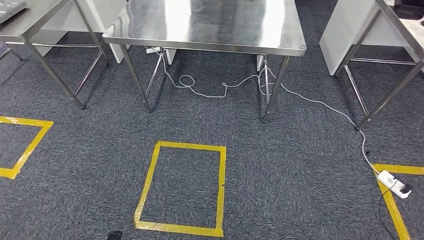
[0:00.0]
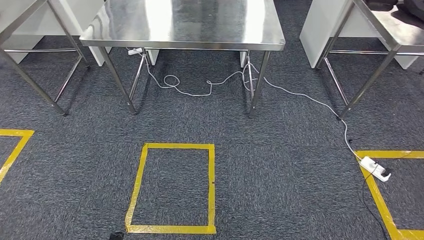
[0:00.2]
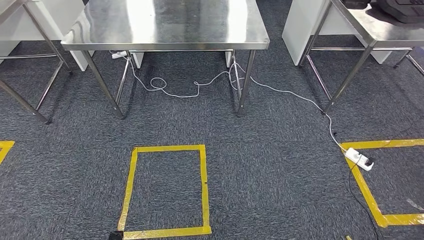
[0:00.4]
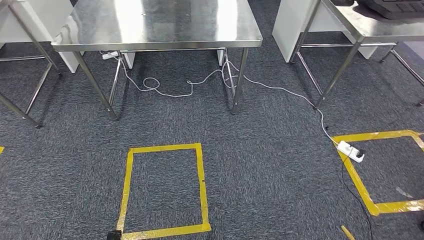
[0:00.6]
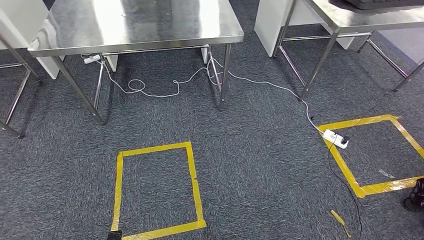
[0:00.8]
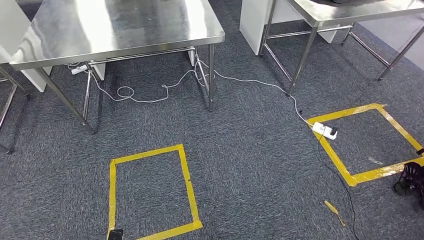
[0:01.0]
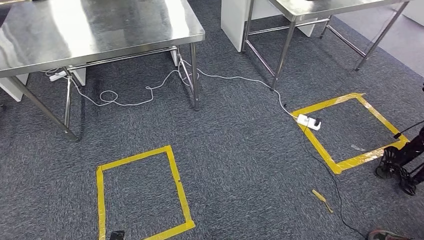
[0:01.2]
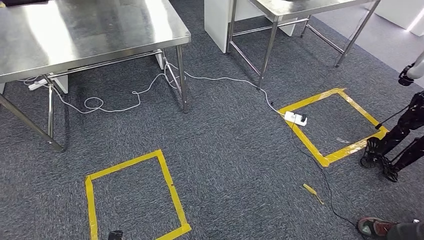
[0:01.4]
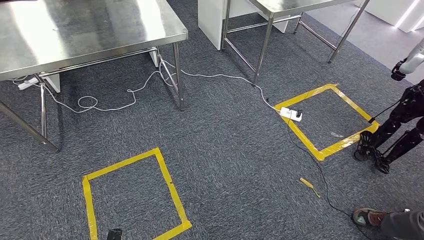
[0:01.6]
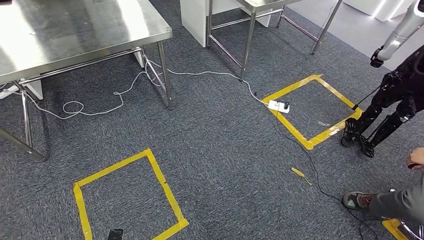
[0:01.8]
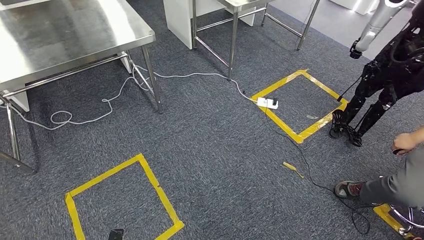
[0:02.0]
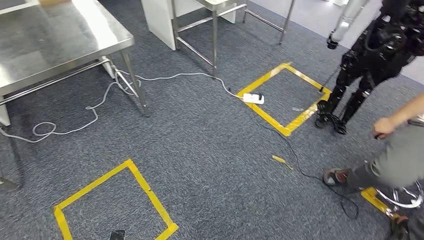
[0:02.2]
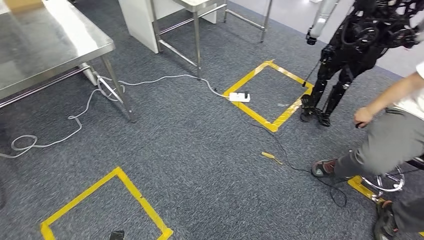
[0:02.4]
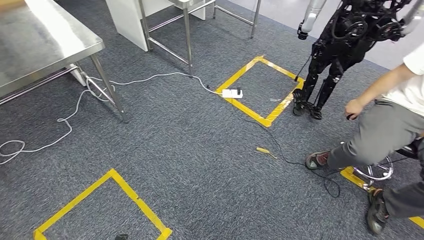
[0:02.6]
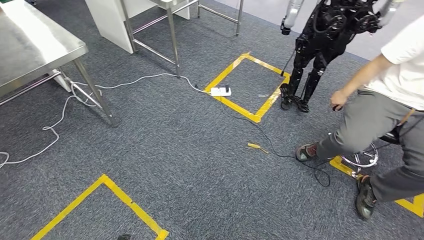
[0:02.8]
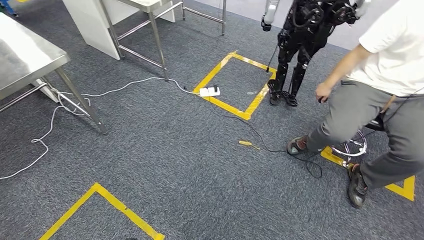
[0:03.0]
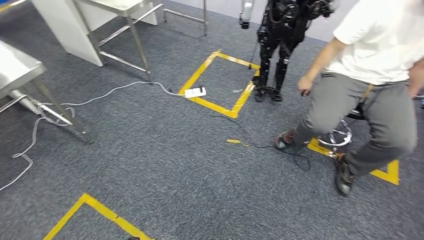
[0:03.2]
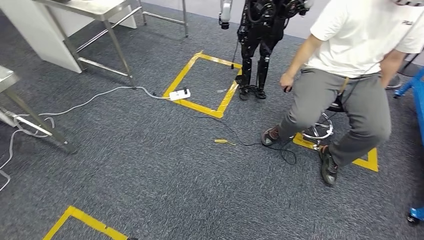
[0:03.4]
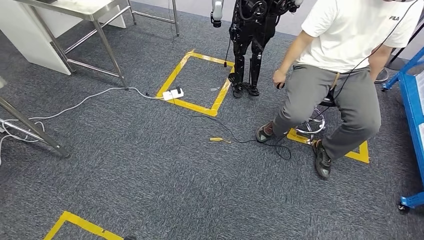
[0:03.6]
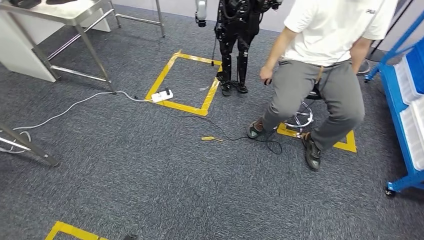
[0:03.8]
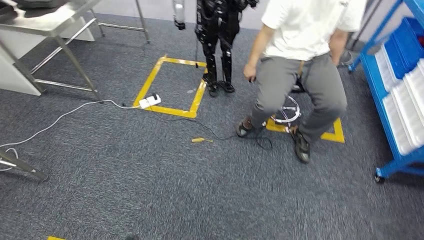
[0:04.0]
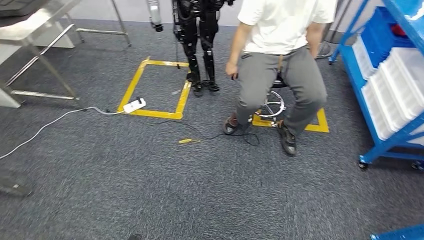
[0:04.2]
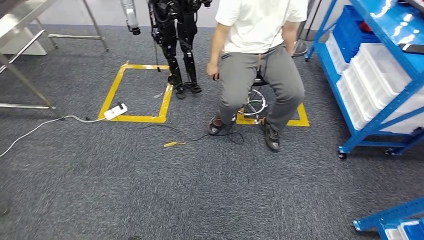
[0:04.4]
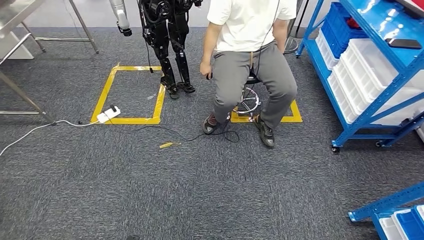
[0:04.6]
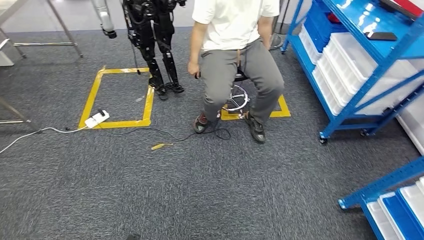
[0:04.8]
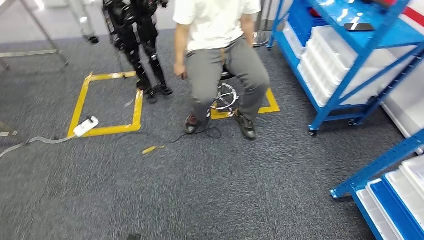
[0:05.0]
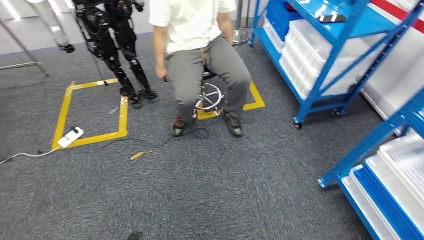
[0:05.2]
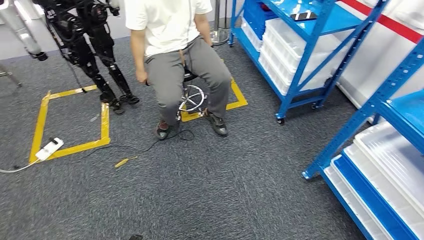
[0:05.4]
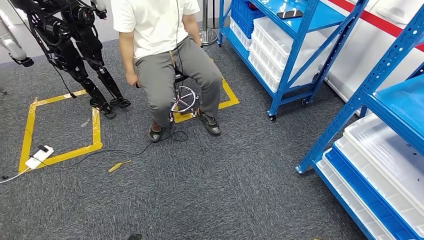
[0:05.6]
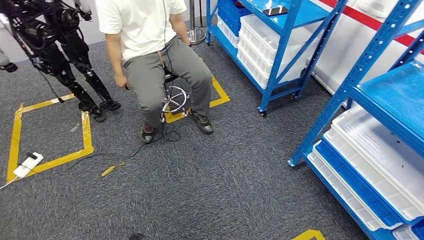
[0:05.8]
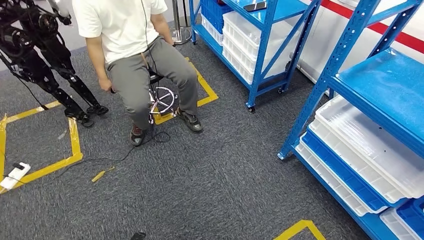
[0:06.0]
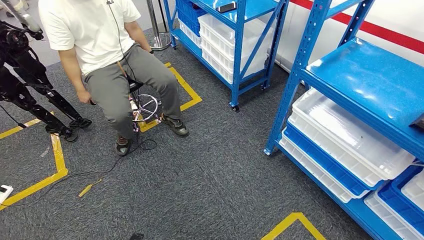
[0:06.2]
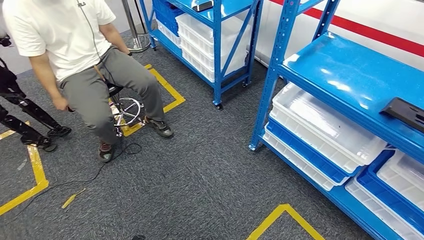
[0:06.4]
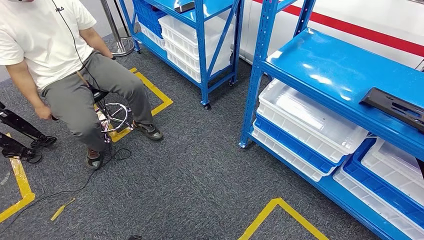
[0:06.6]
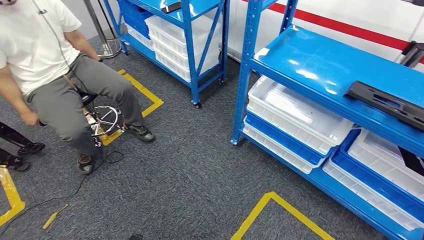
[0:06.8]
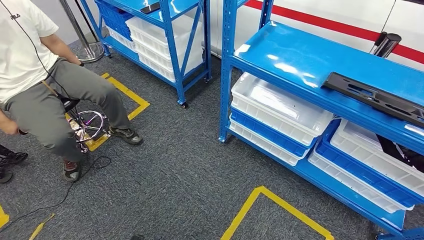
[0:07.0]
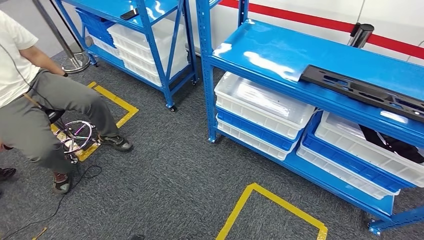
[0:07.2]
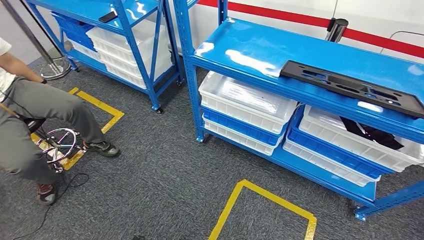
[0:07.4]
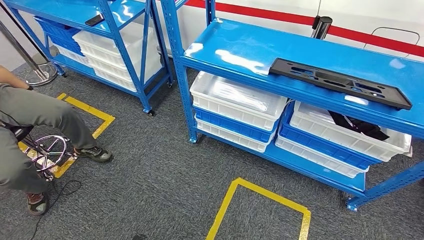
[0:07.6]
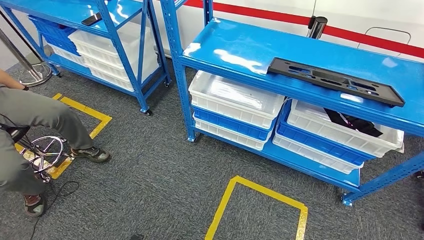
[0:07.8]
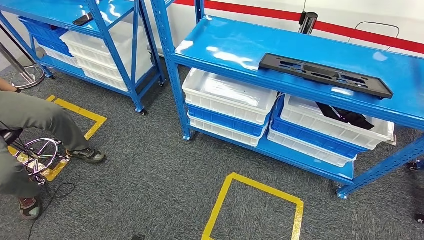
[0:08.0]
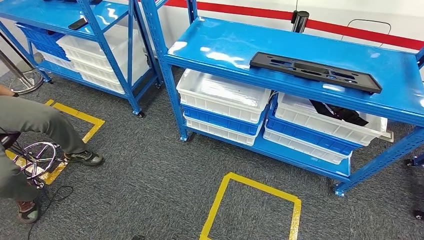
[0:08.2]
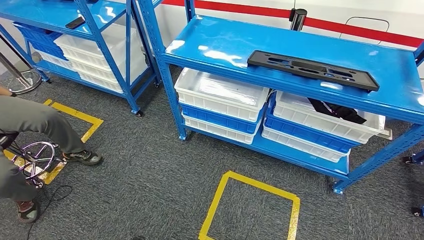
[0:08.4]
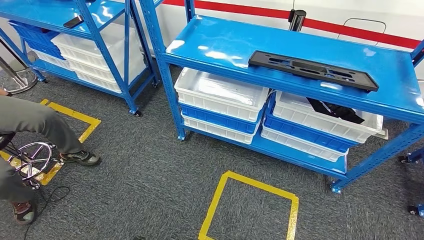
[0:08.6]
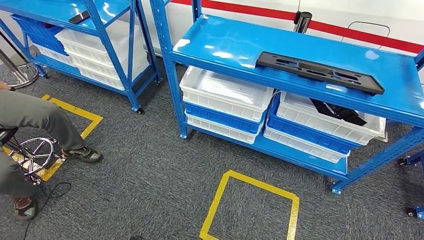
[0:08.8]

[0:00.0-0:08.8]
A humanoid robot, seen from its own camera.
Step, 0:00.0 to 0:08.8: Return to the initial position at the shelf.
